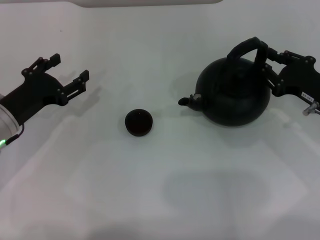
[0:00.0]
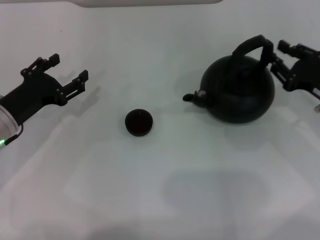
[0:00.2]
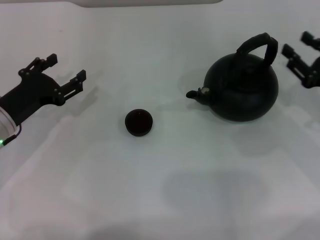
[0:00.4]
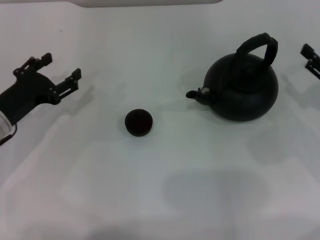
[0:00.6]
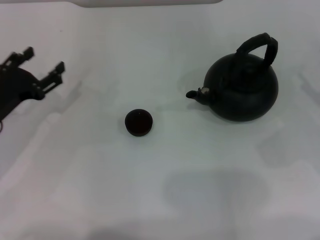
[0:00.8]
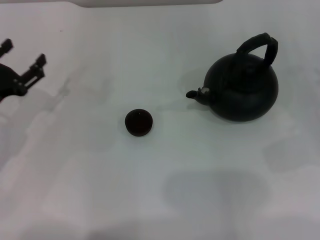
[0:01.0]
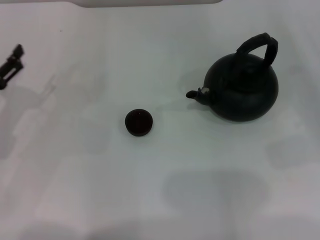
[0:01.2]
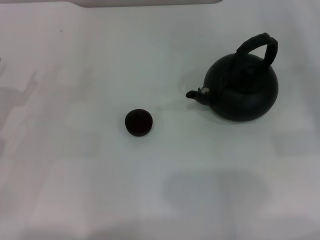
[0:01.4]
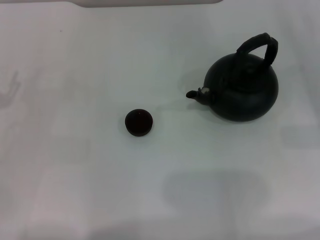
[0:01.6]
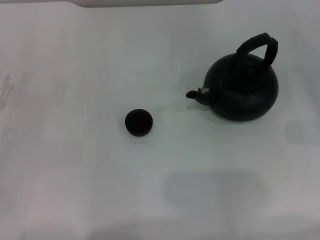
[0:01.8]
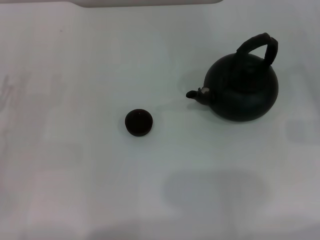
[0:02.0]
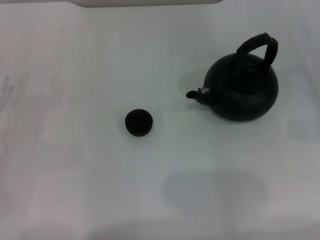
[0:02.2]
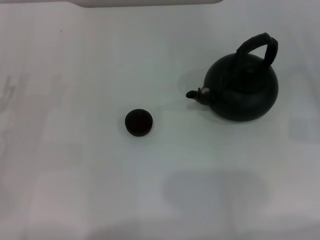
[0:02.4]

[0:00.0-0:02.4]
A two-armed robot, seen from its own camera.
Task of the whole recording: Grasp the handle of the teapot with one hand and pour tea into the teacup.
0:00.0 to 0:01.2: The right gripper heads to the right, covering roughly 10 cm, and opens its fingers; the left gripper goes roughly 5 cm to the left.

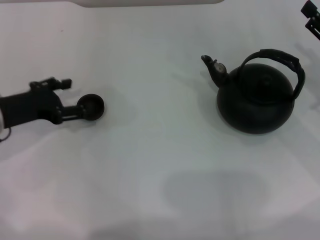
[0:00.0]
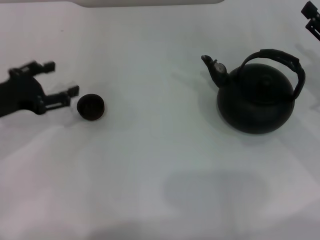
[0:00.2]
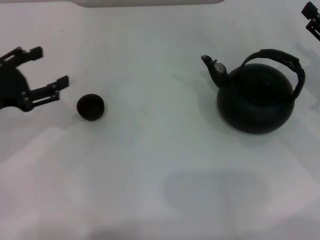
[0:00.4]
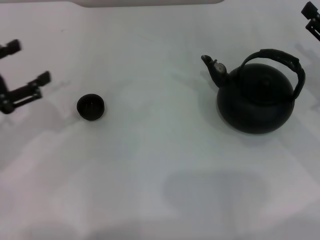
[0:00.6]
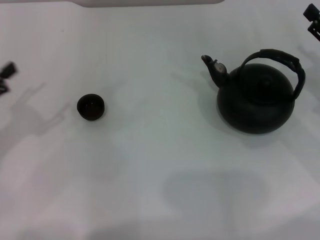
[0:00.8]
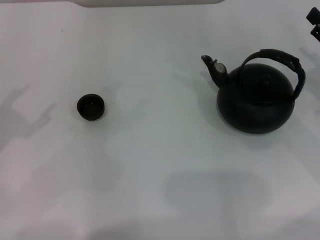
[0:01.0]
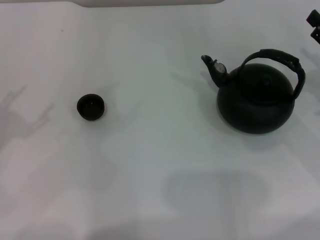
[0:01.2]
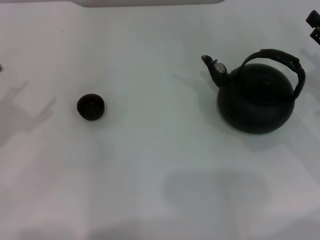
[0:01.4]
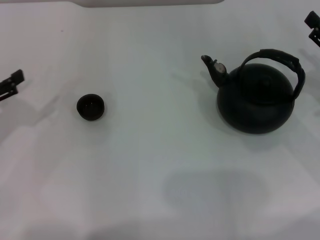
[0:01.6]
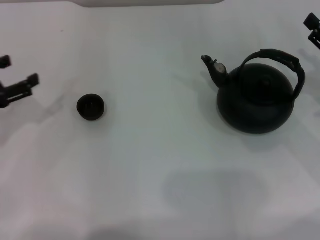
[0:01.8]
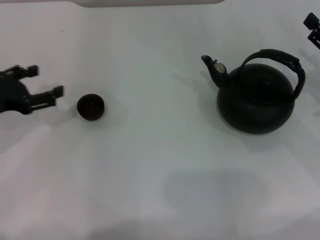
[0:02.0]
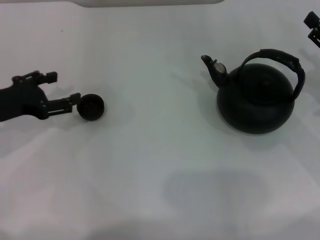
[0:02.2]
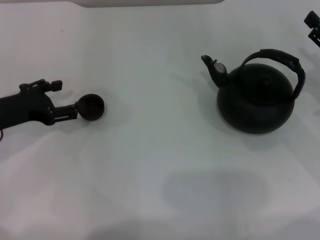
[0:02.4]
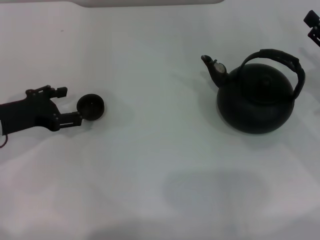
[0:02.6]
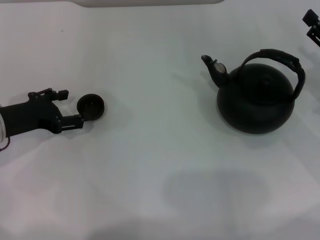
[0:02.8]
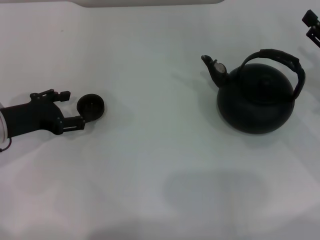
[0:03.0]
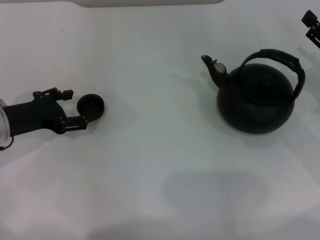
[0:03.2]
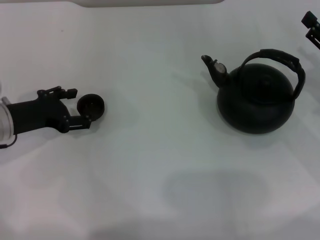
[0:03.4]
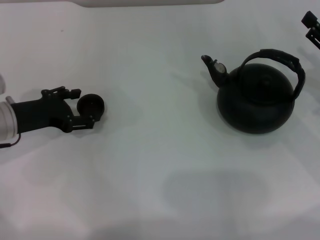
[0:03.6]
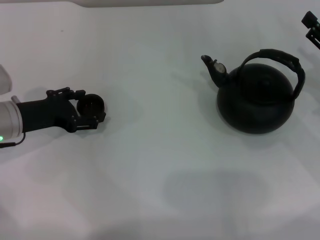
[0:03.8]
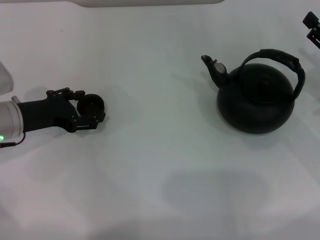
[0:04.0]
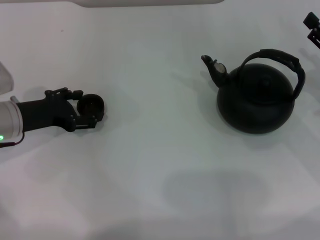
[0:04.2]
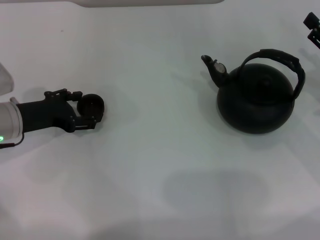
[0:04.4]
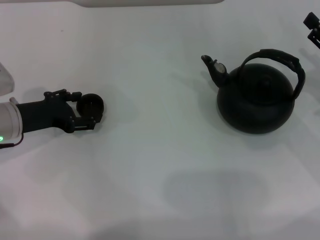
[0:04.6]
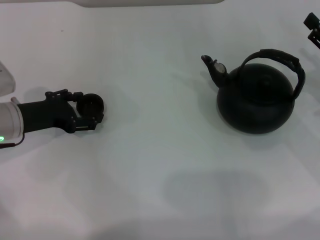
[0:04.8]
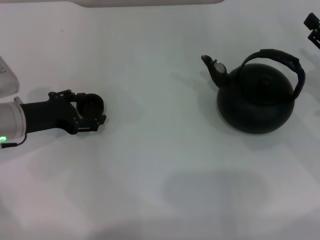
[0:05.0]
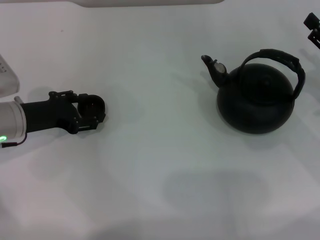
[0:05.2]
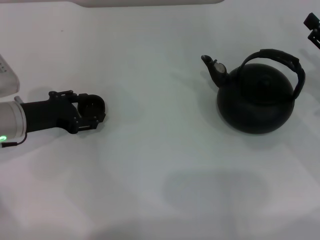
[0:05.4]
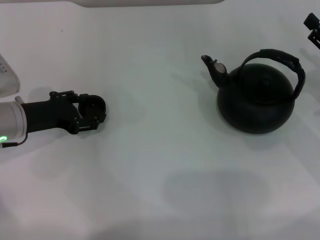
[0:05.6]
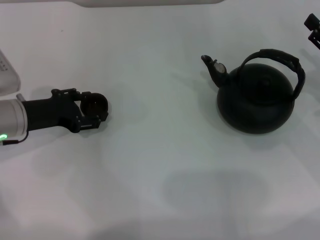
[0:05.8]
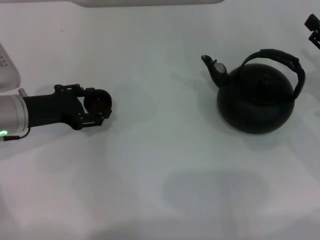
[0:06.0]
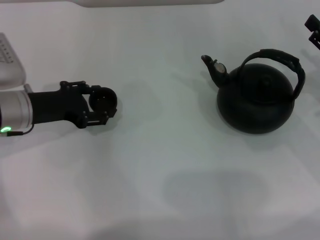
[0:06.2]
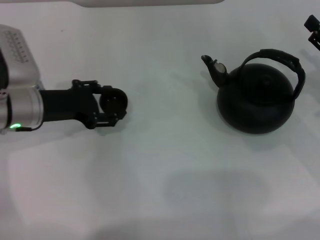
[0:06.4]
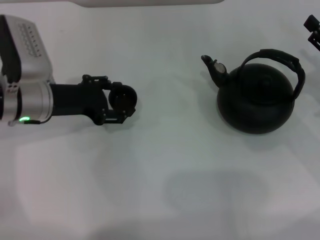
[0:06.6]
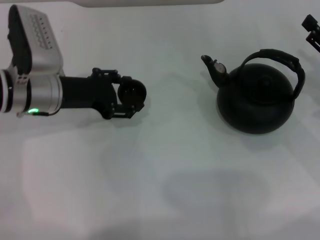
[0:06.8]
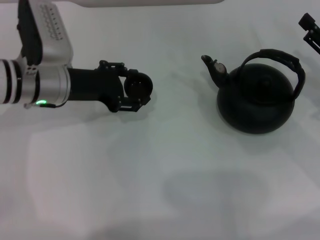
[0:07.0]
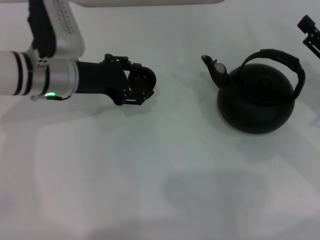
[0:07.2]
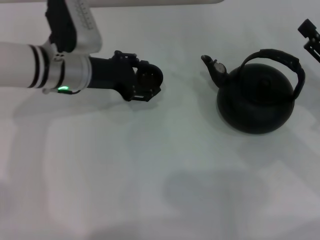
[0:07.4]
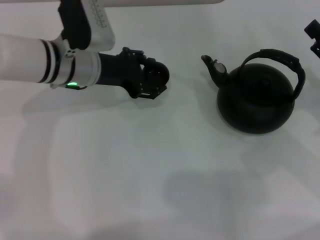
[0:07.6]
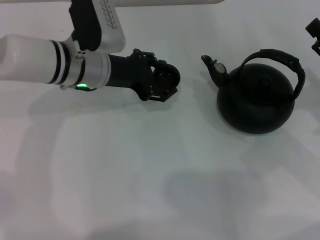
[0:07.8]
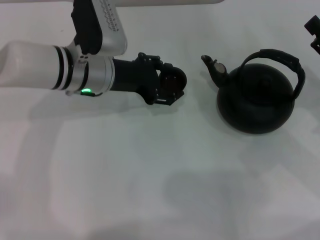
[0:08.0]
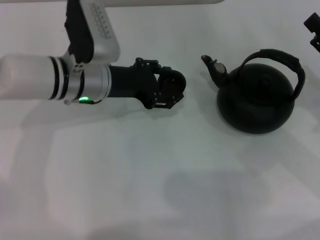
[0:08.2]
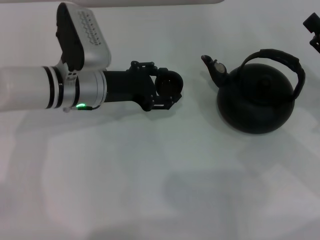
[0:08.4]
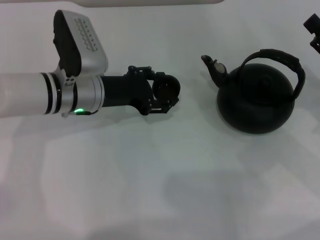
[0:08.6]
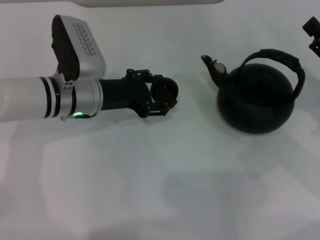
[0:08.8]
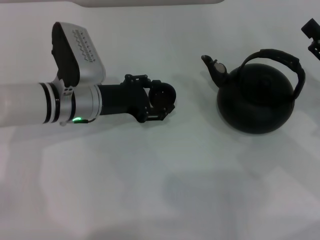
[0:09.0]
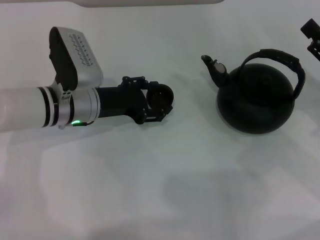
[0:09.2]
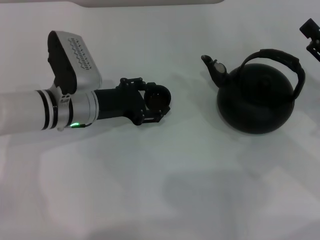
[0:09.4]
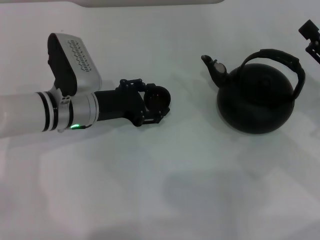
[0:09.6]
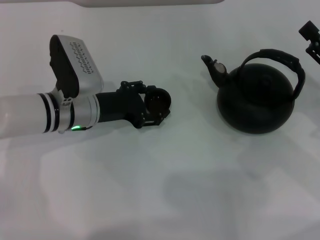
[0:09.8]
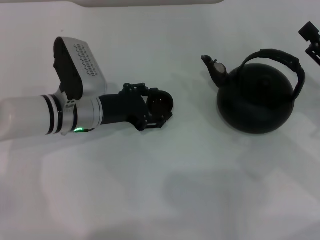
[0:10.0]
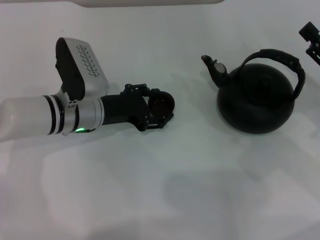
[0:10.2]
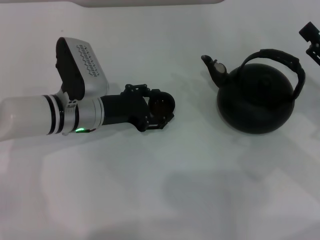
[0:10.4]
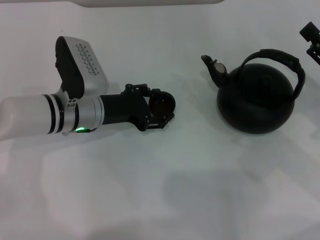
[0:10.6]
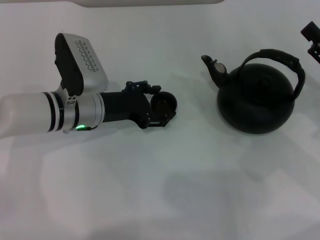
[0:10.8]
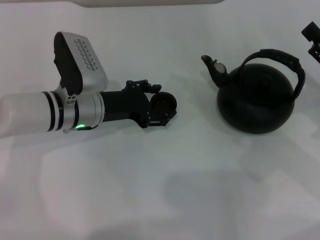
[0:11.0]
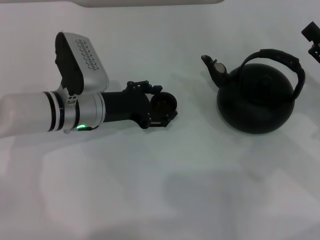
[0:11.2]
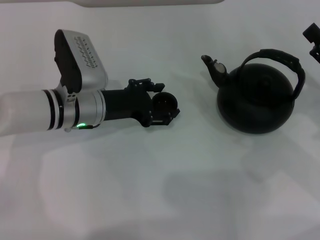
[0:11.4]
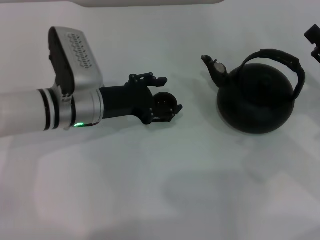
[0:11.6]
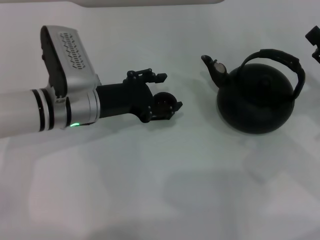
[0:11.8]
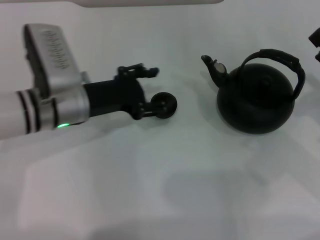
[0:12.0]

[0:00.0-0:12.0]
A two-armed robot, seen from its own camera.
Task of the whole recording: Grasp the handle of the teapot with one hand and pour tea into the teacup.
Step, 0:00.0 to 0:06.0: Pick up the teacup with the left gripper.
0:00.0 to 0:01.6: The left gripper shifts roughly 10 cm to the left and backward.
0:01.6 to 0:03.0: The left gripper moves to the right, roughly 5 cm.
0:03.0 to 0:04.4: The grippers move only a little.
0:04.4 to 0:06.0: The left gripper closes its fingers.
0:06.0 to 0:07.6: The left gripper shifts about 15 cm to the right and forward.
0:07.6 to 0:09.0: The left gripper changes place by roughly 5 cm.
0:09.0 to 0:12.0: The grippers make only small movements.

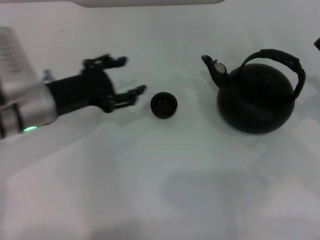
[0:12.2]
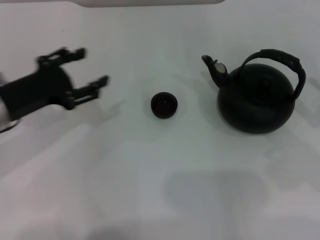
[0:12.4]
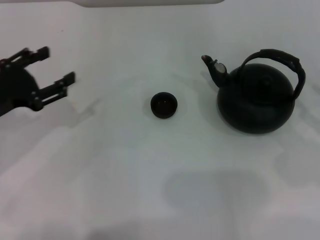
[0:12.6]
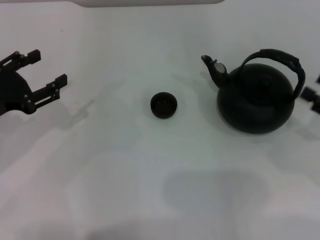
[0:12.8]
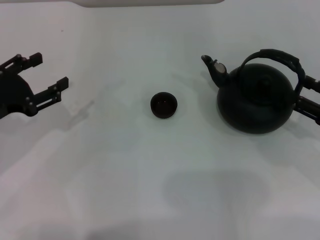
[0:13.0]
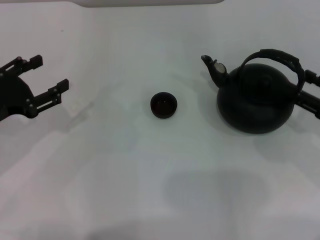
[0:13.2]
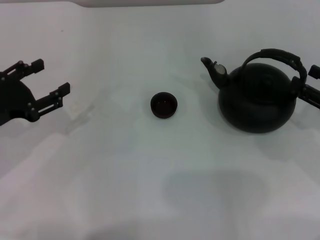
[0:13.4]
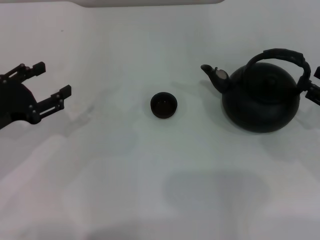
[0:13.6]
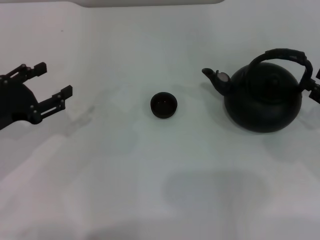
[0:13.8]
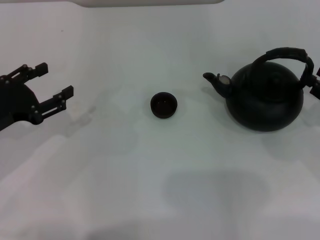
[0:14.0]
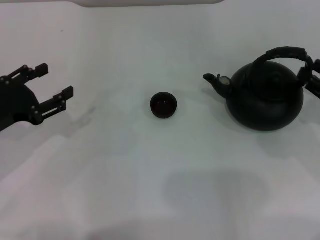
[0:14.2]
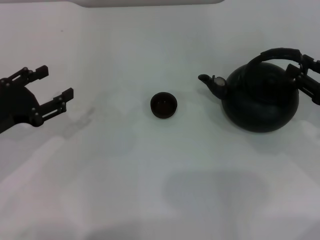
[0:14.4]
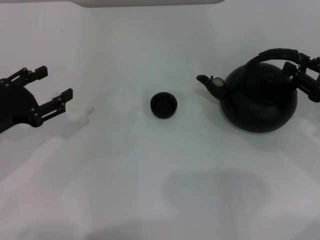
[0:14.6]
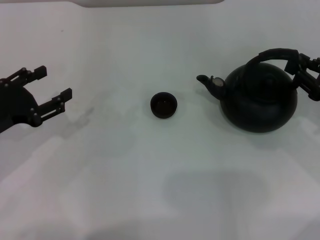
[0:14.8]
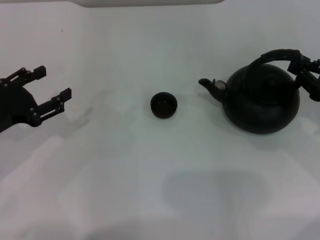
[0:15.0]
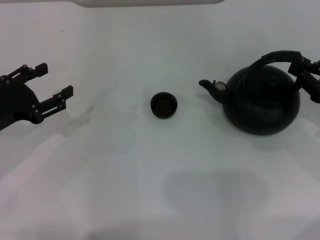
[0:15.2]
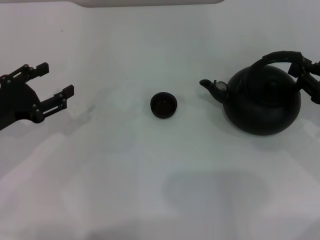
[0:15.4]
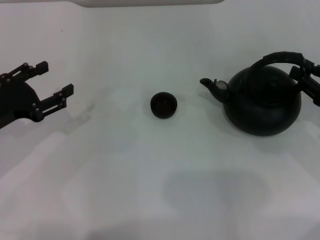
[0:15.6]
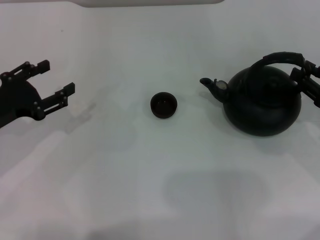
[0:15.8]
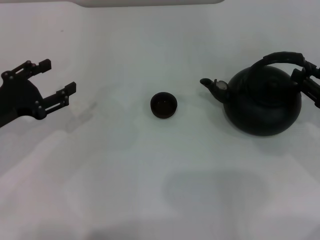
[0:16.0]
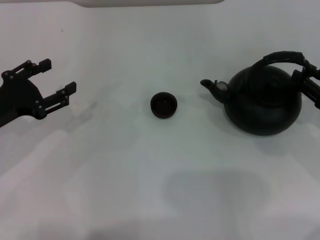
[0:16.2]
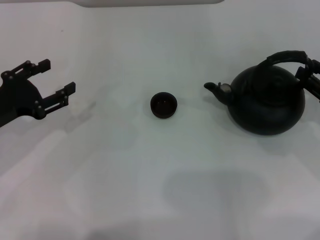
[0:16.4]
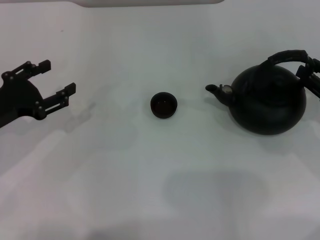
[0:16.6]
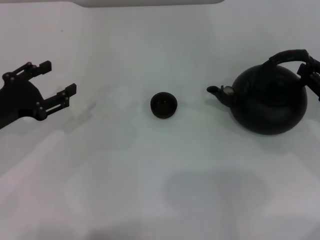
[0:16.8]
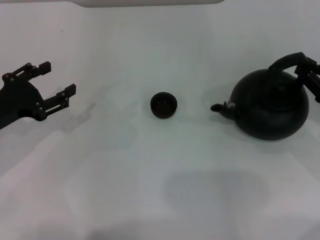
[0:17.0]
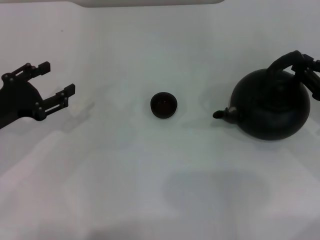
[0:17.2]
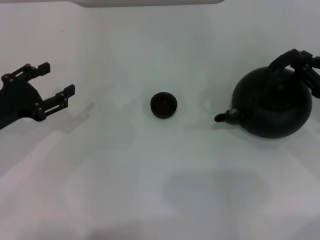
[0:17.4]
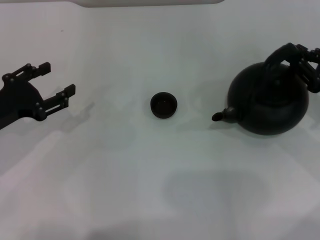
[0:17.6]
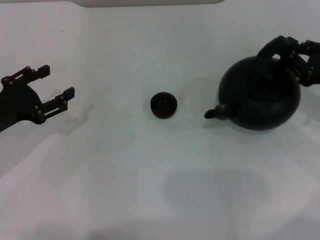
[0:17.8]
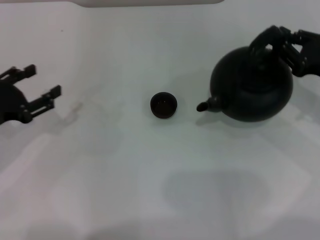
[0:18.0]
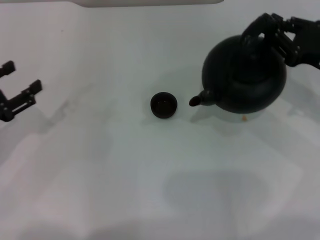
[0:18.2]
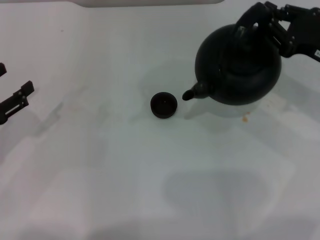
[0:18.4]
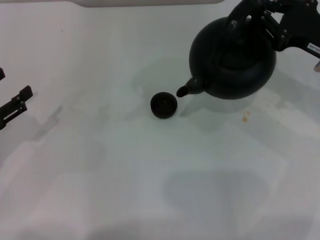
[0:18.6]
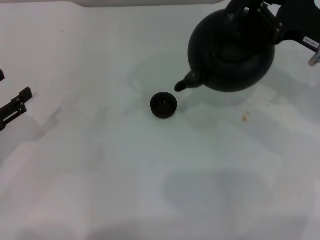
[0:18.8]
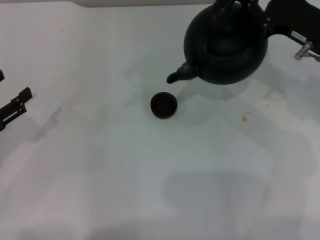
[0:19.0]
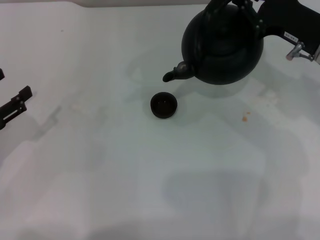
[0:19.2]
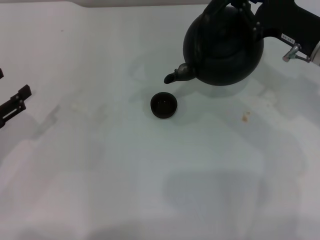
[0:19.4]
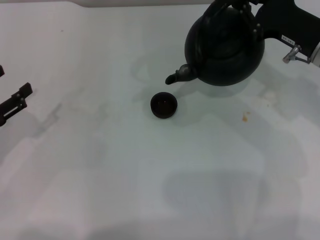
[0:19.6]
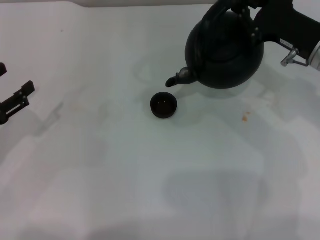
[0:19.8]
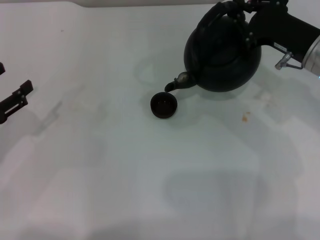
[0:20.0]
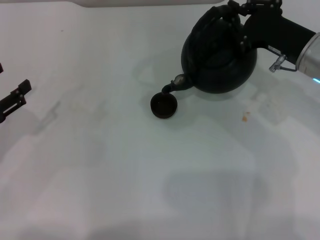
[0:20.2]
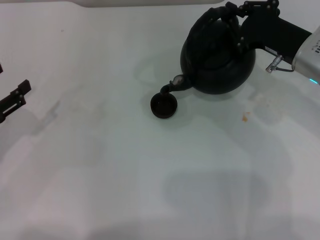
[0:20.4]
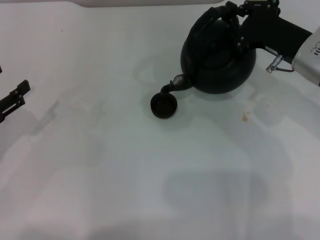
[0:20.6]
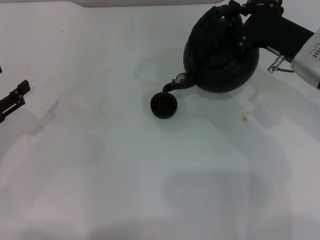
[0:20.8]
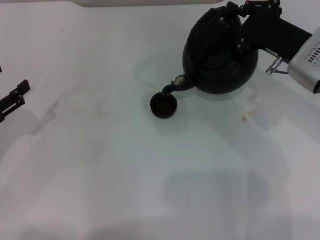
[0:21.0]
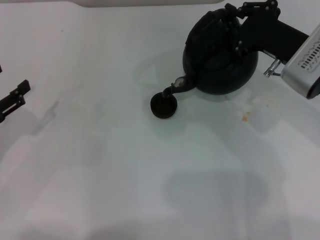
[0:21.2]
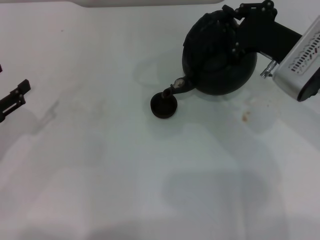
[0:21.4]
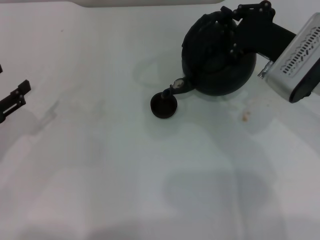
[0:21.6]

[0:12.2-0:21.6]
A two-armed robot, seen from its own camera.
Task of the whole recording: Grasp the handle of the teapot with one hand and pour tea into the teacup.
Step, 0:12.2 to 0:18.0: Pick up the teapot with the right gripper.
0:12.2 to 0:13.8: The left gripper heads to the left and backward, covering approximately 10 cm.
0:13.8 to 0:15.4: The right gripper closes up.
0:15.4 to 0:17.0: The two grippers keep their place.
0:17.0 to 0:18.4: The left gripper shifts by about 5 cm, while the right gripper shifts about 10 cm to the left, forward and upward.
0:18.4 to 0:20.0: The right gripper changes place by approximately 5 cm.
0:20.0 to 0:21.6: The grippers stay close to where they were, moving slightly.
